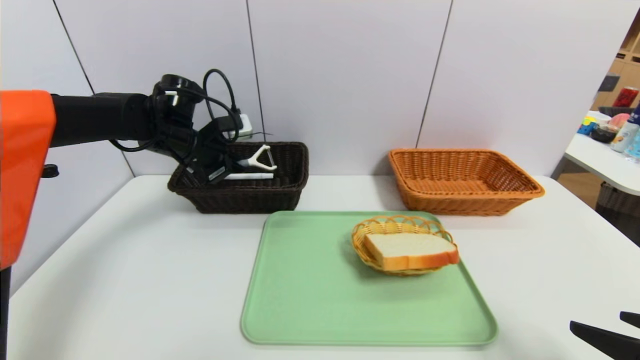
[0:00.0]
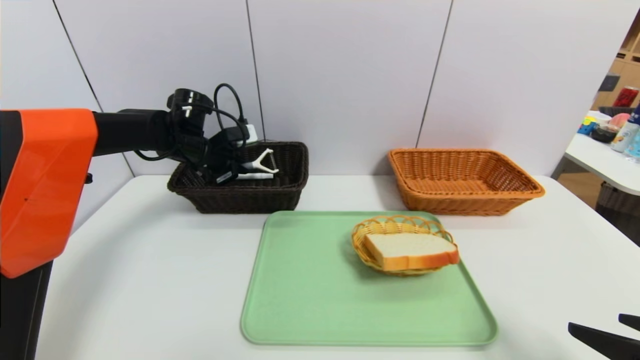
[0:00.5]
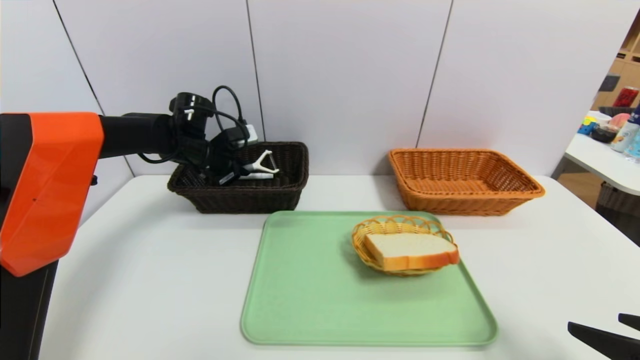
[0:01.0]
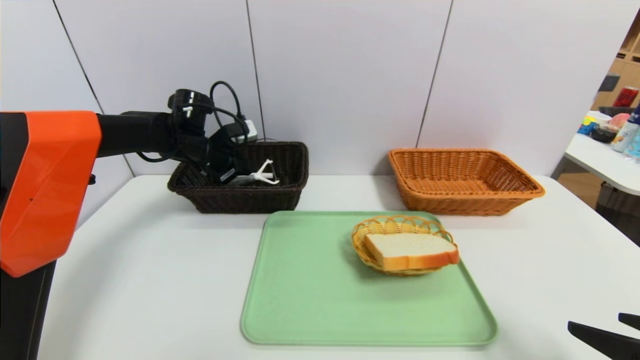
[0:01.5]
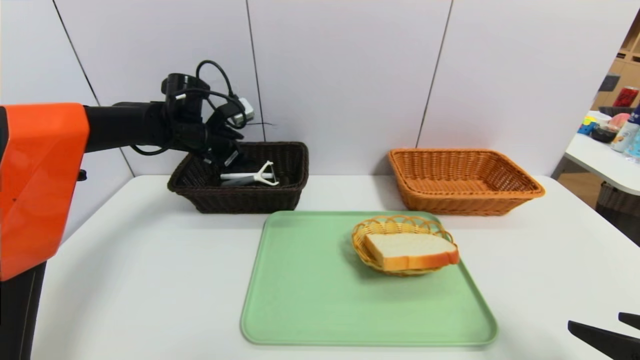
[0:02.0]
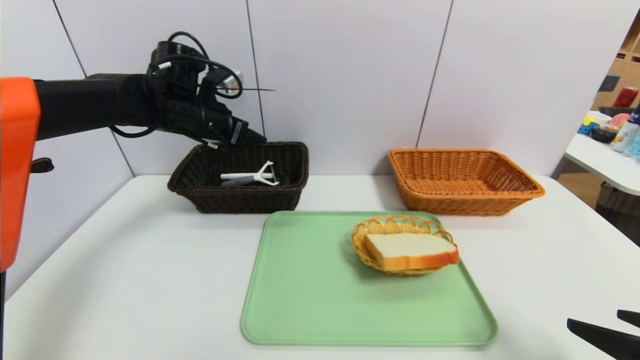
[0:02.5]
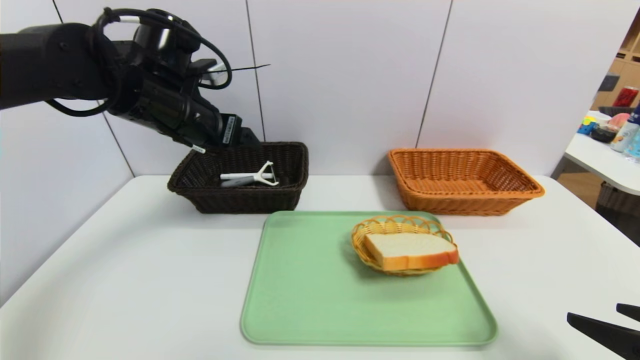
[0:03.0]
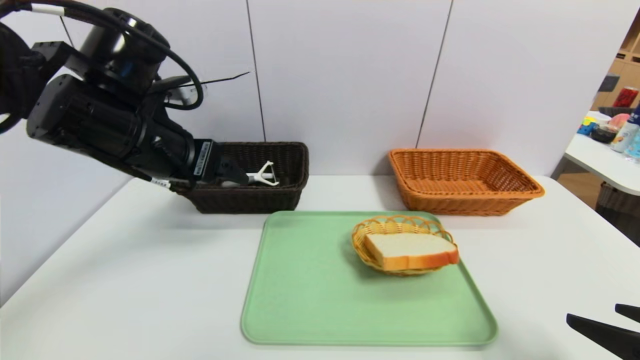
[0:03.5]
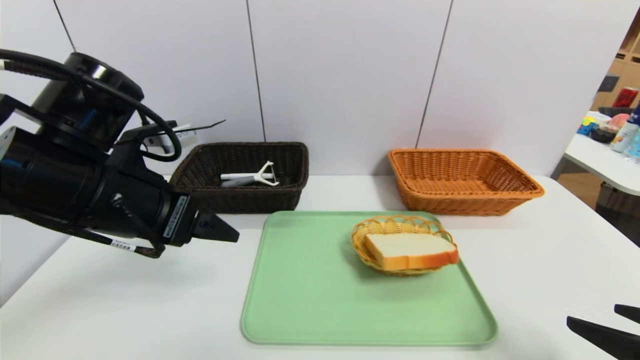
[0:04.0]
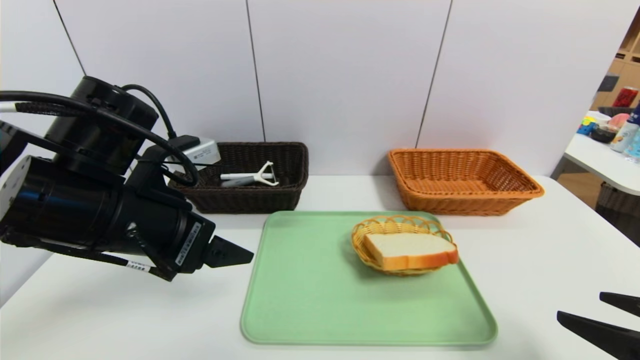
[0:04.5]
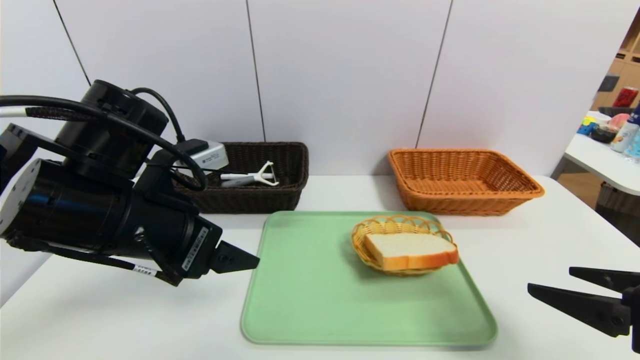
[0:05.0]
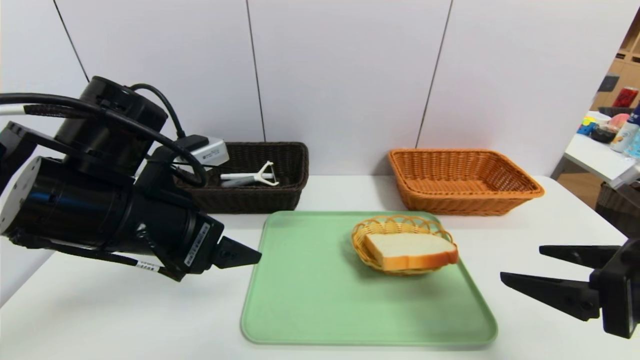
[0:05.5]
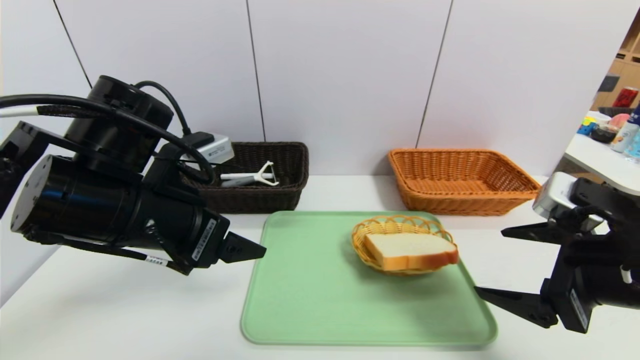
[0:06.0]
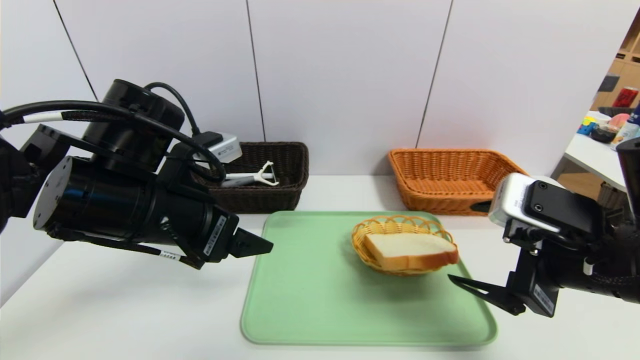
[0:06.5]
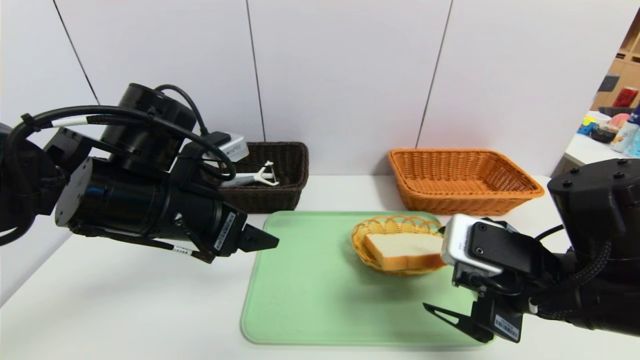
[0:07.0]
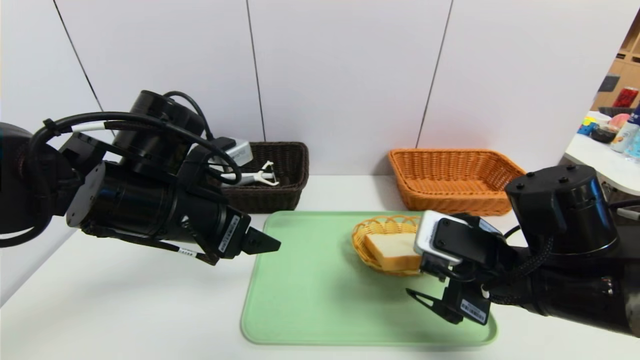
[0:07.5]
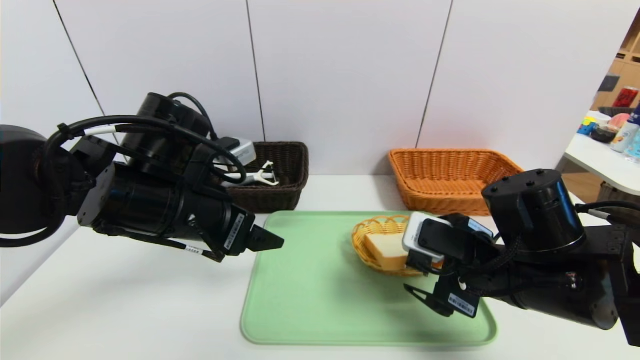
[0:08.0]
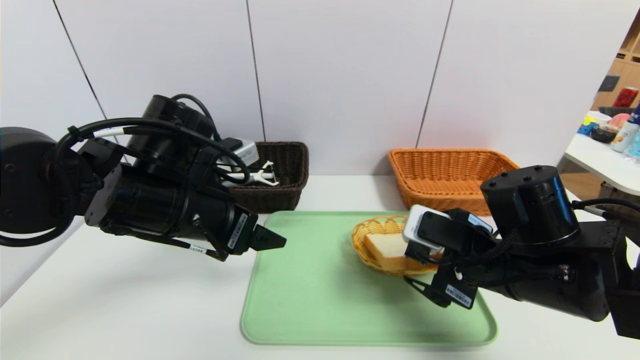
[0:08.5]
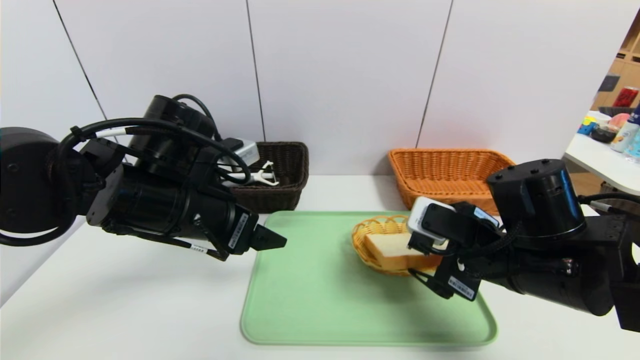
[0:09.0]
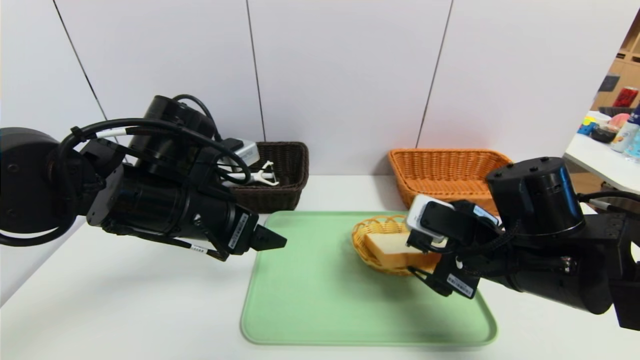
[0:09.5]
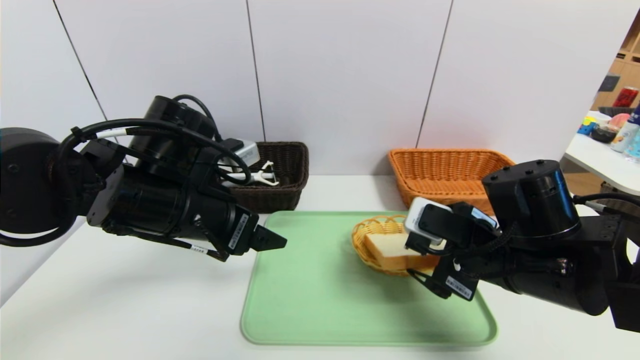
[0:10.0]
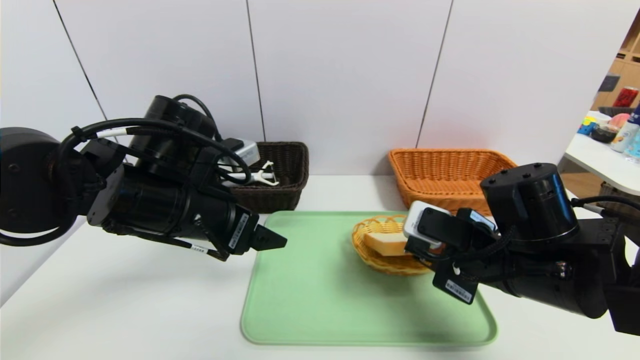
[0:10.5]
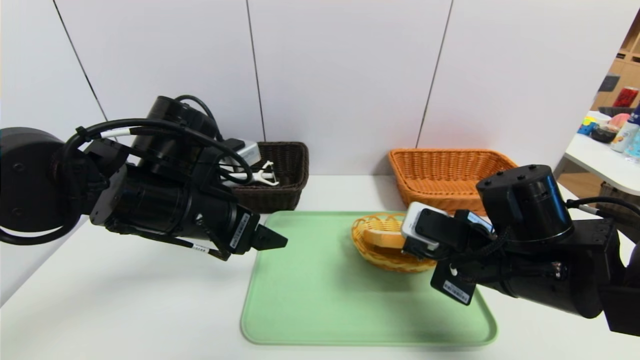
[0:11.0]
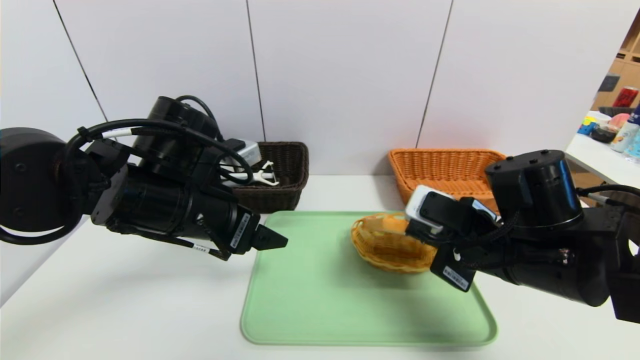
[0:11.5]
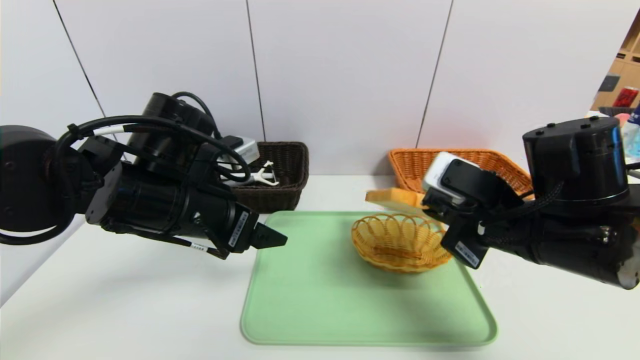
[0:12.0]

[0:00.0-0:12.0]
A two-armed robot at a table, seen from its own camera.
Task of the whole recording: place the food in the right basket with the right gripper, and place the non food items in the left basket with the left gripper.
Step, 0:00.0 to 0:02.5: Grasp the peeler and put it in the left basket.
0:00.0 to 0:02.0: The left gripper opens up.
0:02.0 to 0:04.0: The left gripper is displaced backward by some 25 cm.
0:04.0 to 0:06.0: The right gripper travels forward and to the left by roughly 10 cm.
0:06.0 to 0:08.0: The right gripper heads to the left, covering some 10 cm.
0:08.0 to 0:10.0: The grippers stay close to where they were, moving slightly.
0:10.0 to 0:12.0: The right gripper closes up.

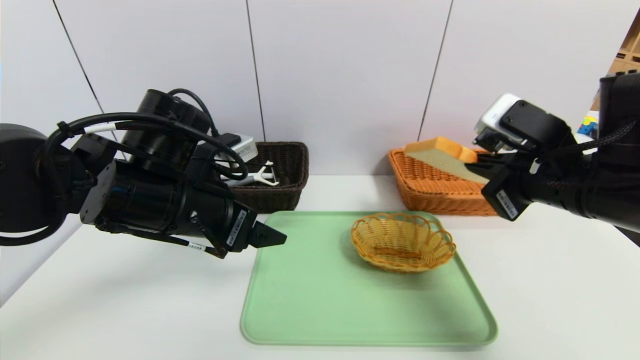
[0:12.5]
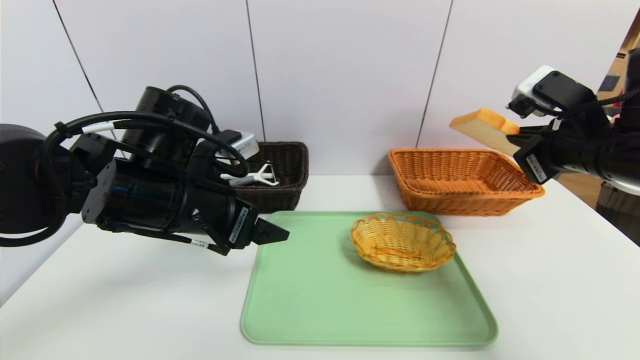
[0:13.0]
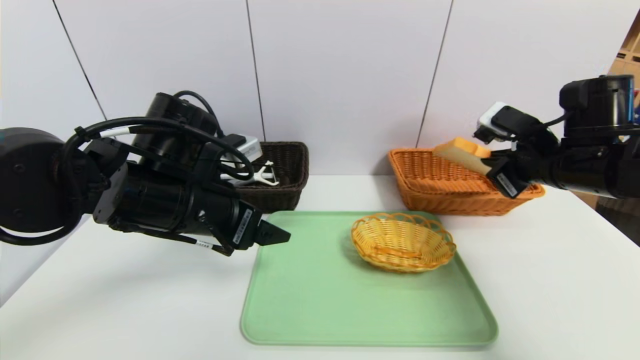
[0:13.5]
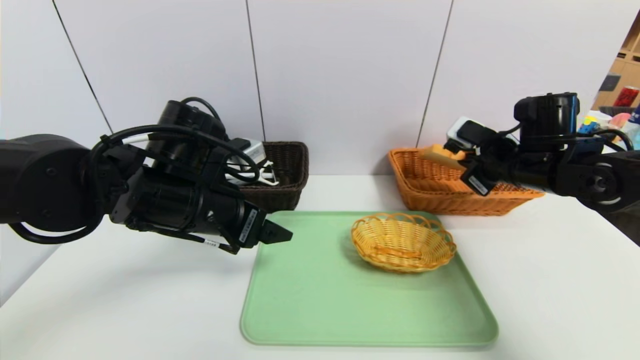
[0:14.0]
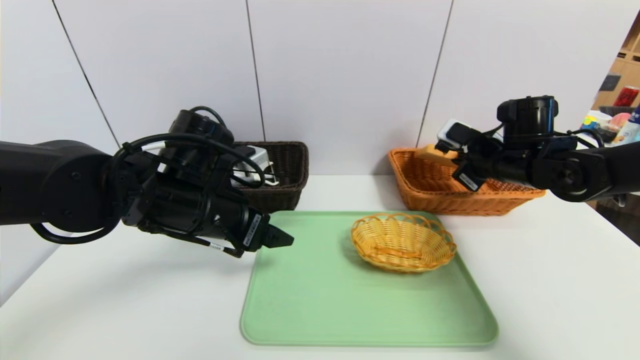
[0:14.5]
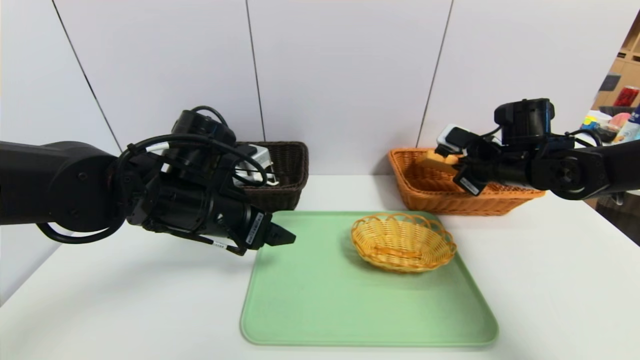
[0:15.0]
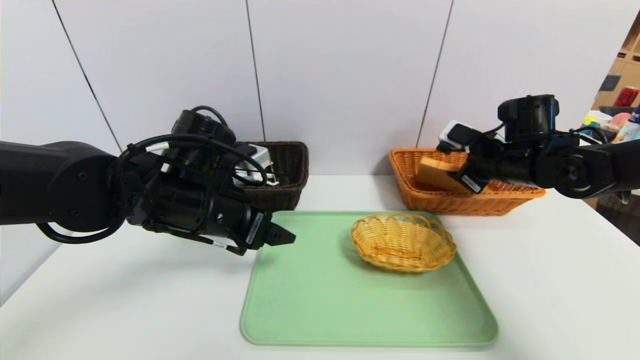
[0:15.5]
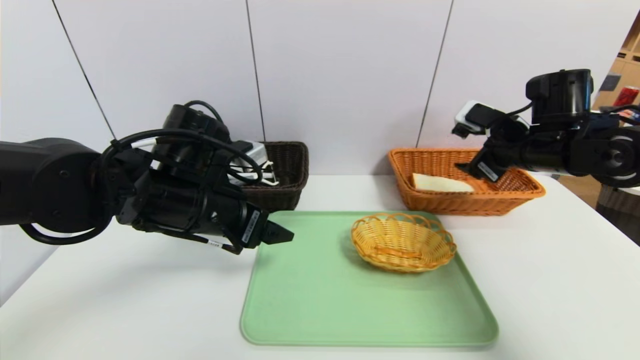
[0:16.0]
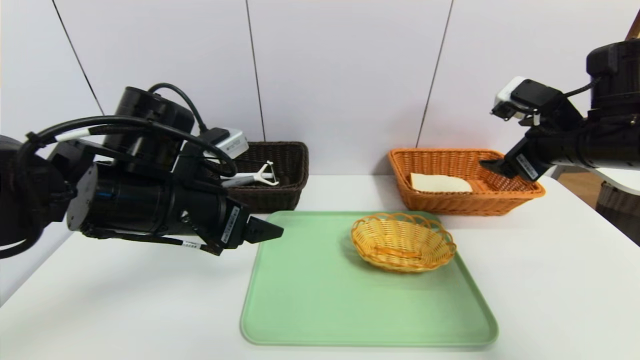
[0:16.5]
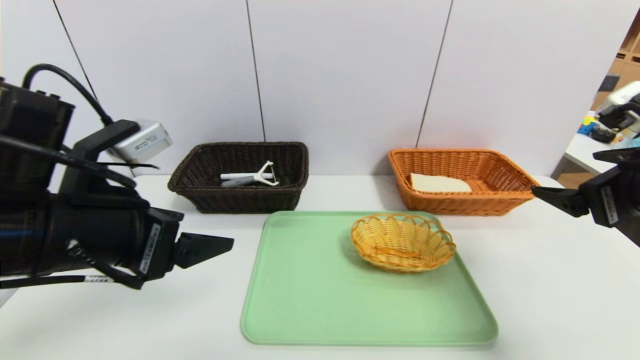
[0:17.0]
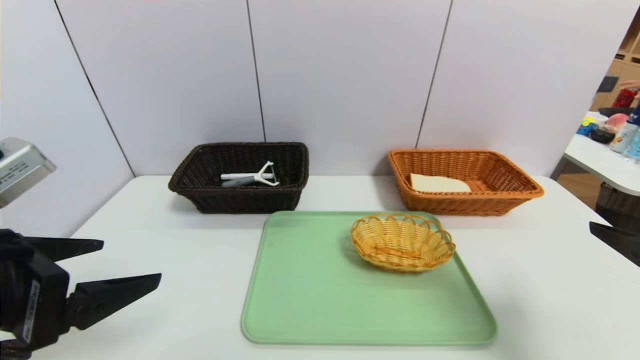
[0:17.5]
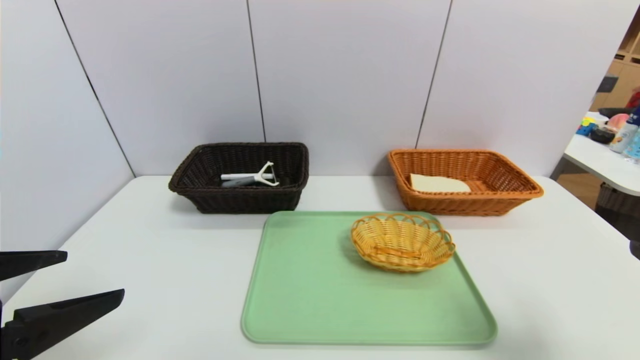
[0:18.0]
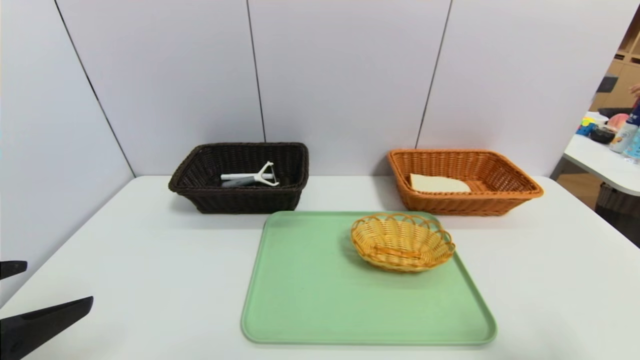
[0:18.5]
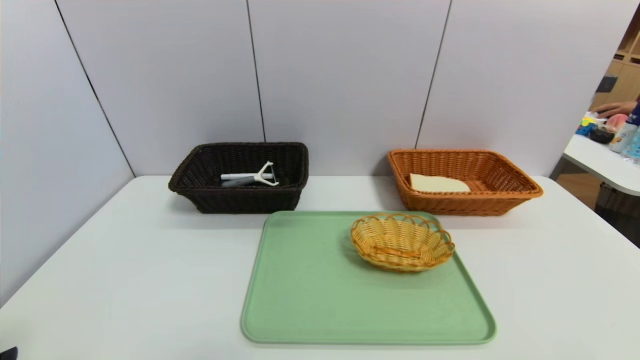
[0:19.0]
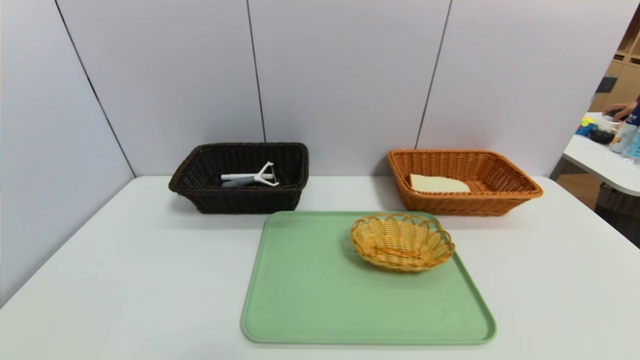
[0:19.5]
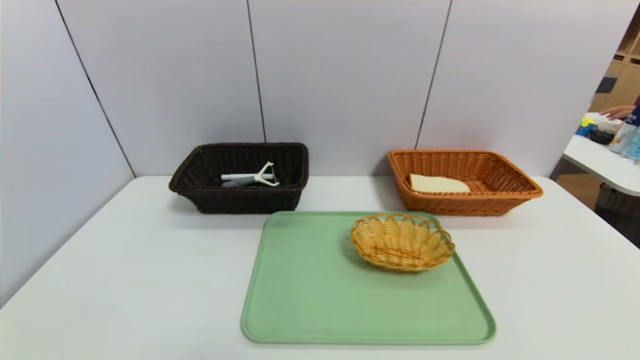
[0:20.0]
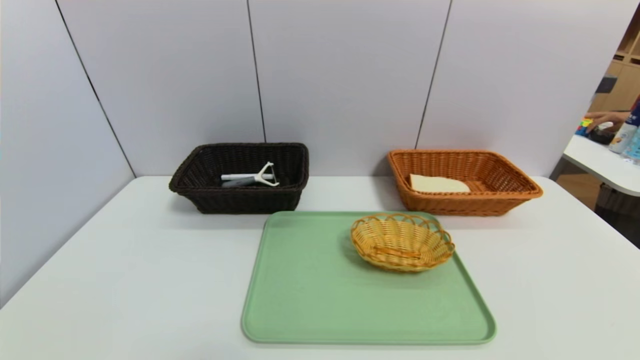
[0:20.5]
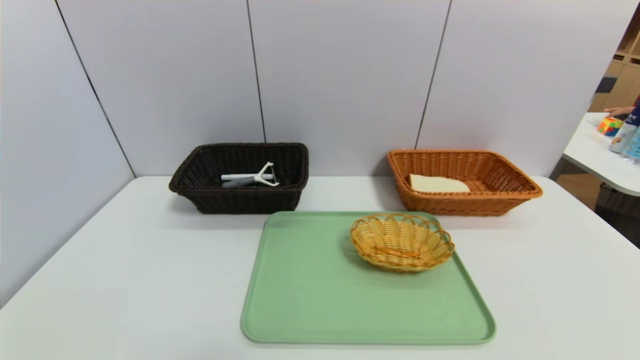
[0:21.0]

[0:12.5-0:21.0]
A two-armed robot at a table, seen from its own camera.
Task of the whole recording: place the food in the right basket with the right gripper, and place the non food items in the left basket with the left gripper.
Step, 0:12.5 to 0:16.0: Grasp the bread slice and put it in the right basket.
0:12.5 to 0:14.5: The right gripper travels forward and downward by roughly 15 cm.
0:14.5 to 0:16.5: The right gripper travels backward and upward by approximately 10 cm, and opens.
0:16.5 to 0:19.0: The right gripper shifts roughly 30 cm backward. Meanwhile the left gripper shifts roughly 25 cm backward and to the left.
